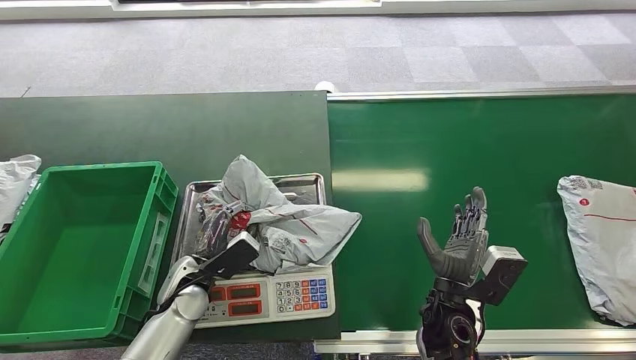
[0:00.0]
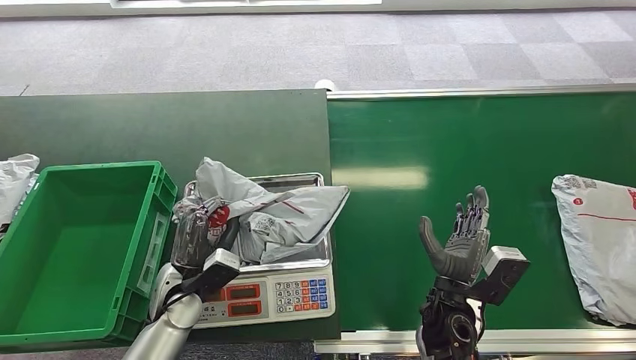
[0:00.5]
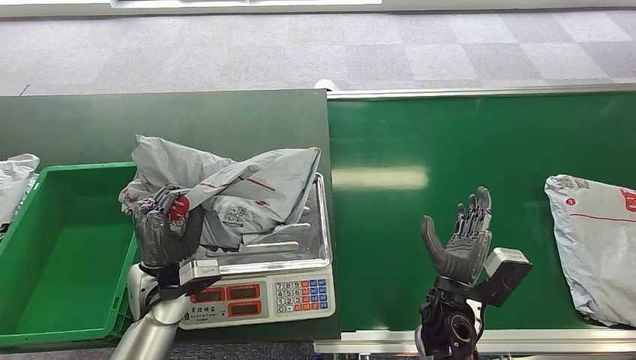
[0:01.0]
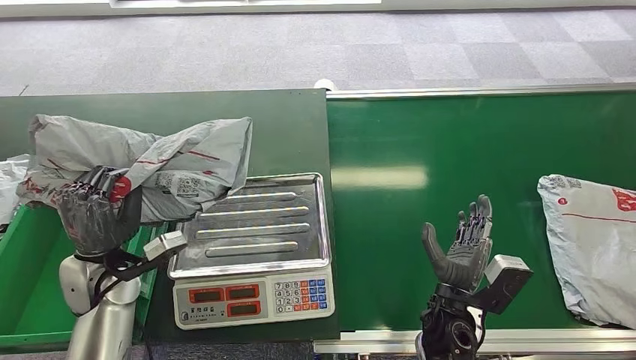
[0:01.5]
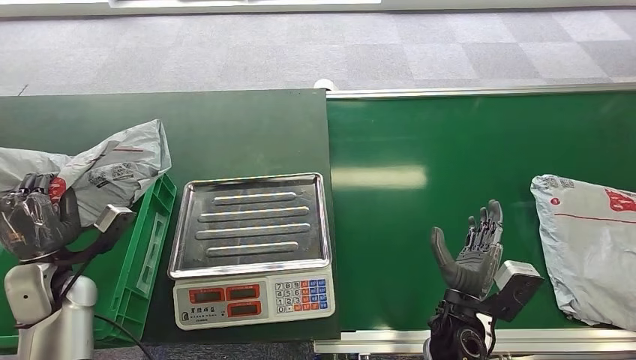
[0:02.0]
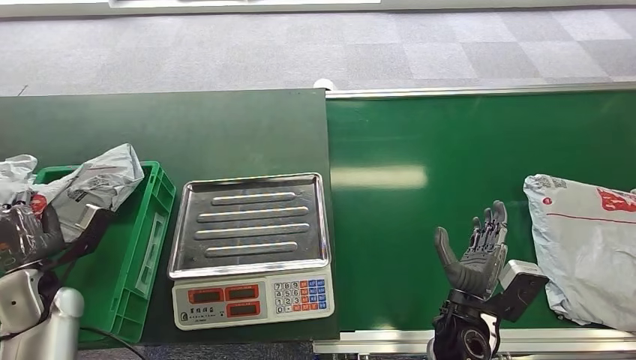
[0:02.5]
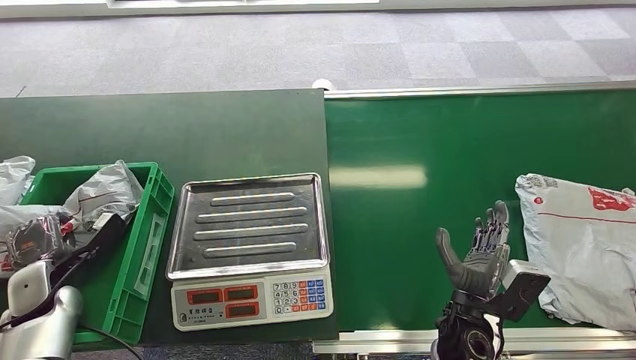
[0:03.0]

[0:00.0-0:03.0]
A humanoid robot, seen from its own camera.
Step, 0:00.0 to 0:01.0: Pick up the package from the inbound machine.
Step, 0:02.5 to 0:03.0: Place the package into the parcel locker.
